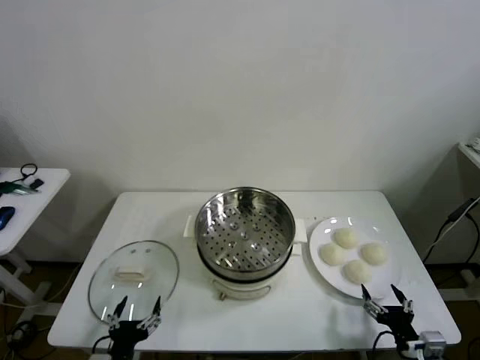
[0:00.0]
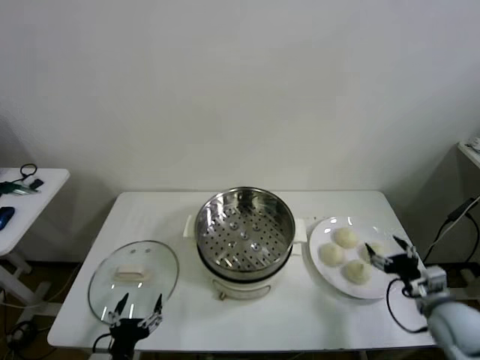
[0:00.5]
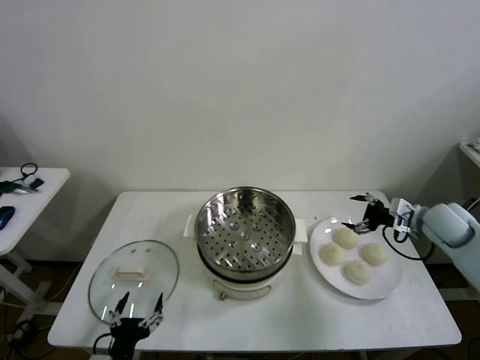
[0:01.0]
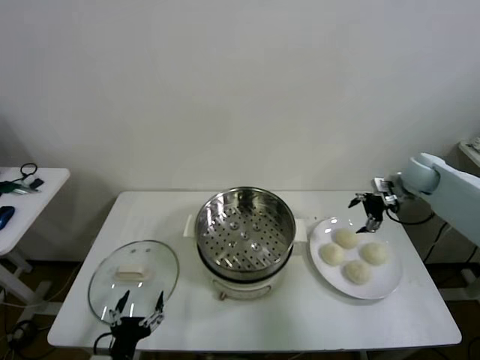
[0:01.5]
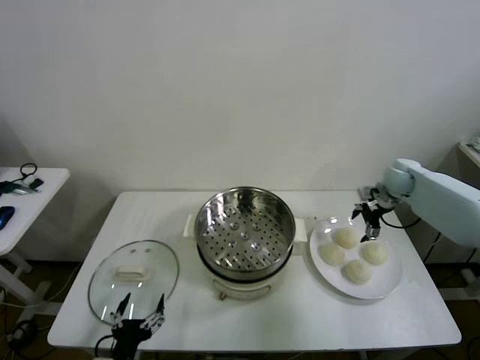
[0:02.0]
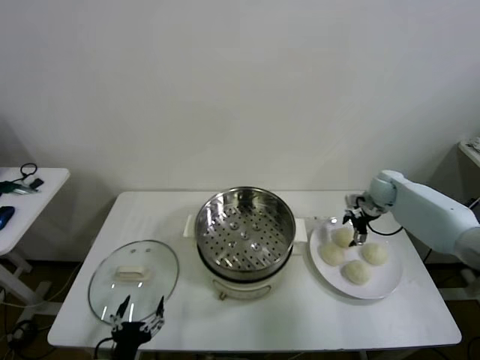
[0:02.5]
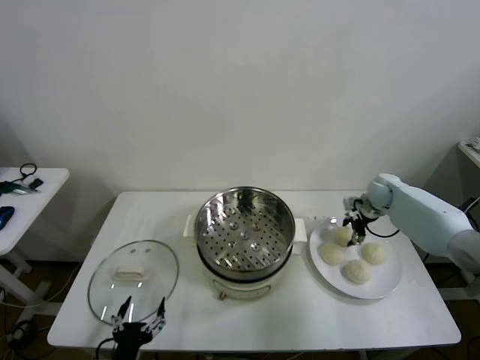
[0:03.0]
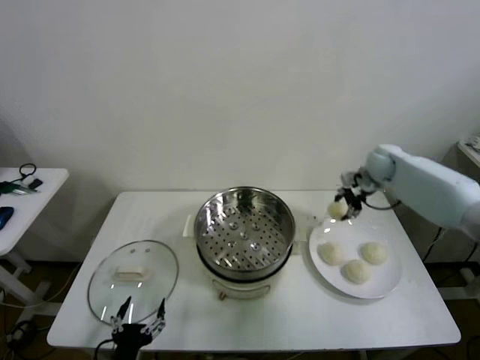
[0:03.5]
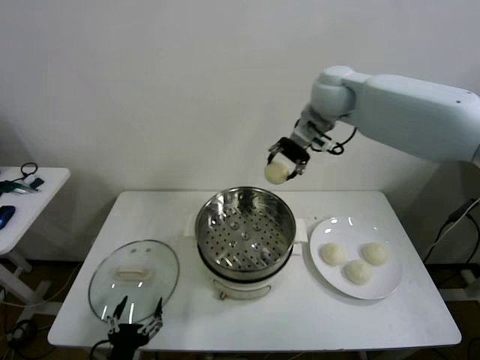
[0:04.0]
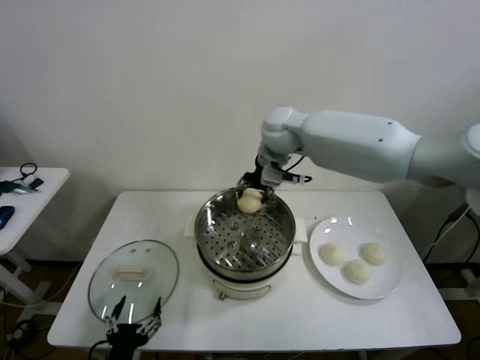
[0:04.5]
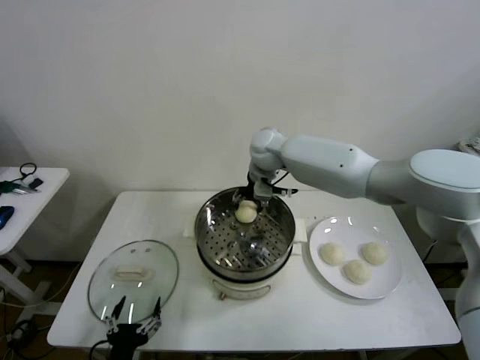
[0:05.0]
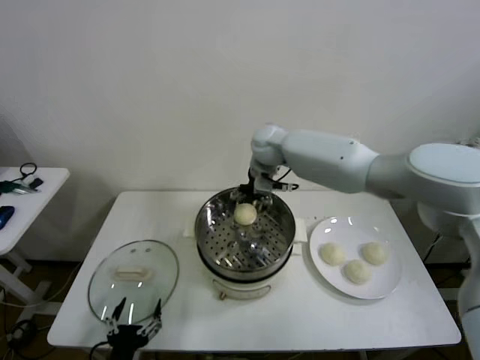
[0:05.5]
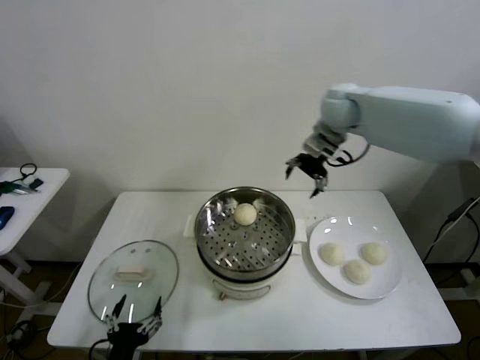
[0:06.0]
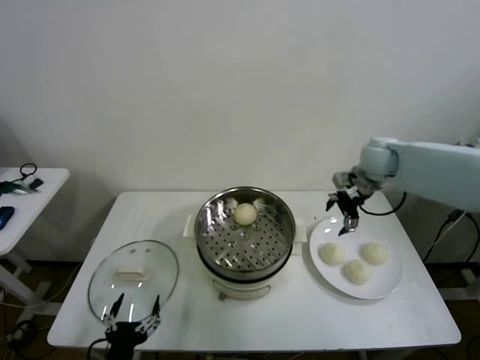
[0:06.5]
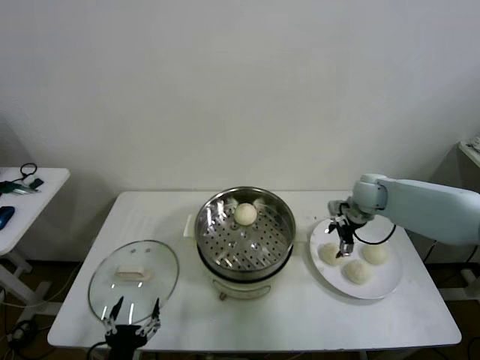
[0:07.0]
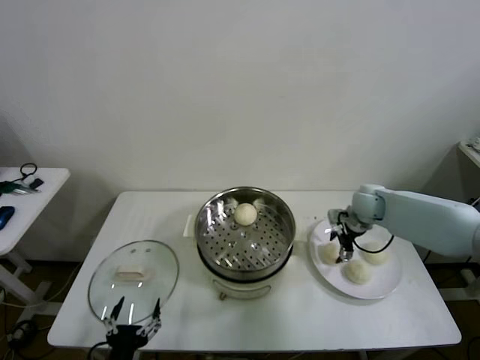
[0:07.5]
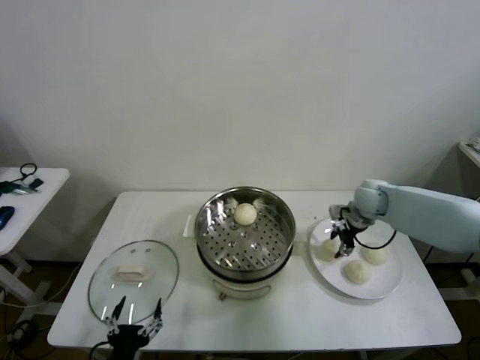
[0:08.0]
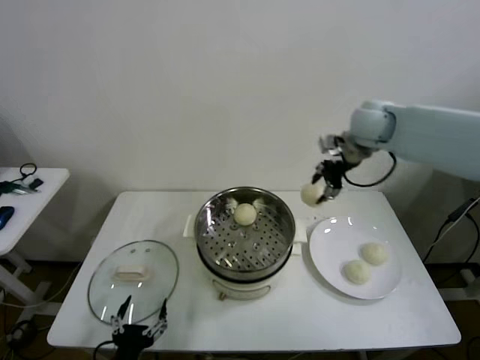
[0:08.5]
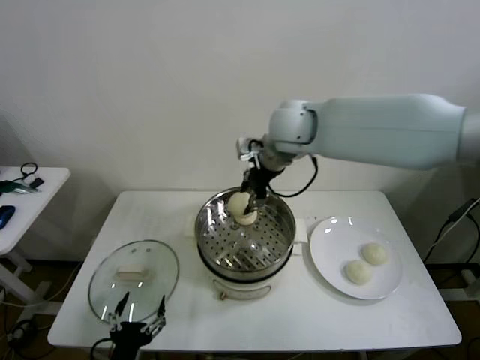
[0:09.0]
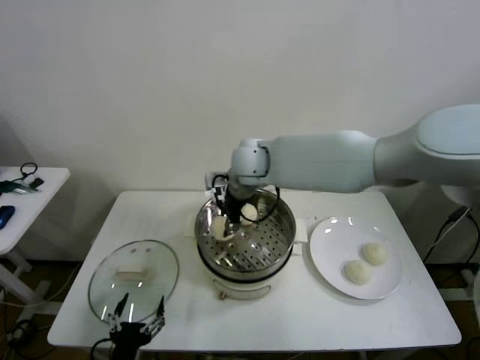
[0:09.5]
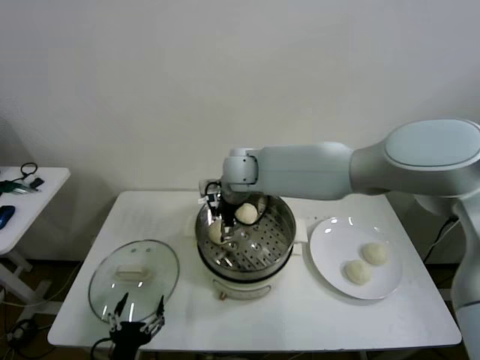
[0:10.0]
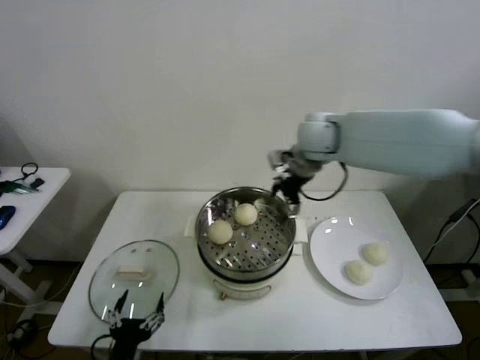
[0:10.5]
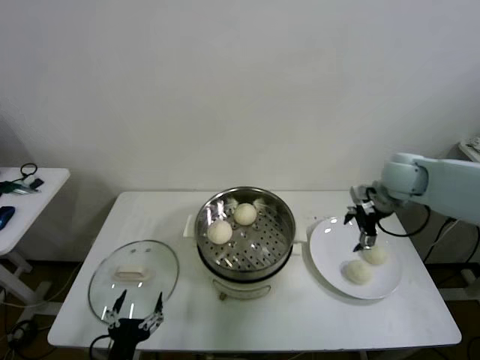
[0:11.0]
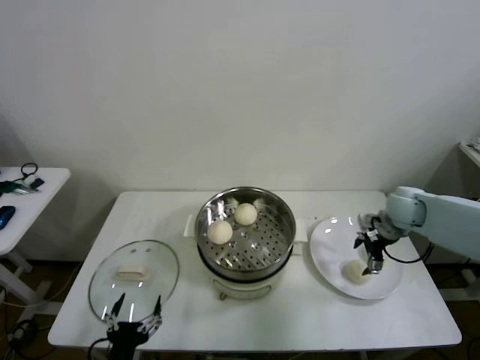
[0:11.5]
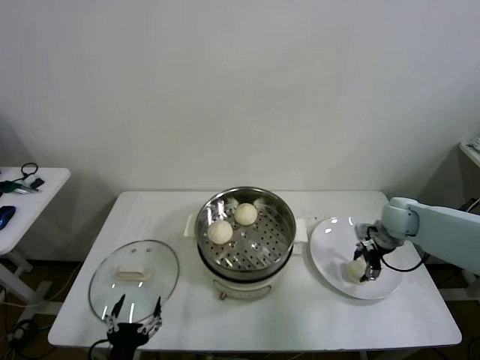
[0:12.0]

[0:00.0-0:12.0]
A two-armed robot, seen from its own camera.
Task of the whole recording: take steamed baozi put them in steamer then cover it.
Step, 0:00.0 to 0:03.0: Grasp the baozi in the plate with right gripper.
Step, 0:03.5 to 0:05.0: Place the baozi on the steamer with right gripper.
Step, 0:06.0 to 0:07.5: Grasp the baozi in the plate with right gripper.
Step, 0:08.5 to 0:10.0: Place the baozi on the steamer with right gripper.
0:02.0 to 0:04.0: The right gripper is displaced to the left and upward by roughly 35 cm, and closes its fingers.
0:04.0 to 0:06.0: The right gripper goes about 10 cm to the right, and opens up.
0:06.0 to 0:08.0: The right gripper is displaced downward by some 20 cm, and closes.
0:08.0 to 0:10.0: The right gripper heads to the left, covering approximately 35 cm, and opens.
0:10.0 to 0:12.0: The right gripper heads to the right, covering about 40 cm, and closes up.

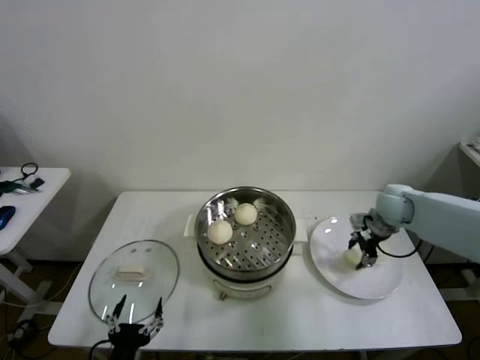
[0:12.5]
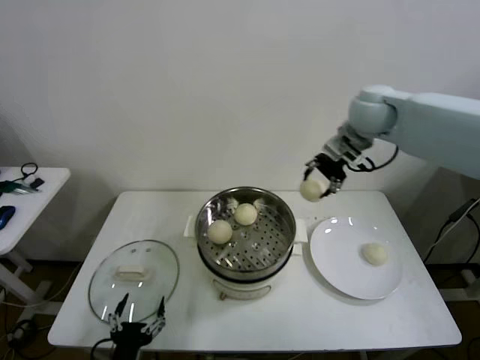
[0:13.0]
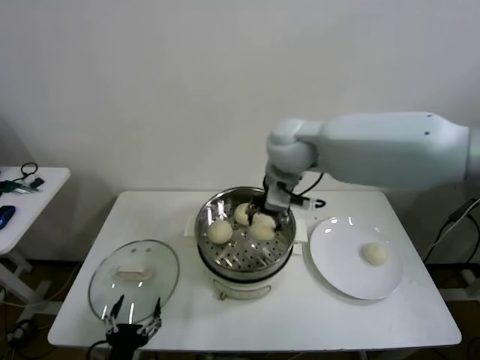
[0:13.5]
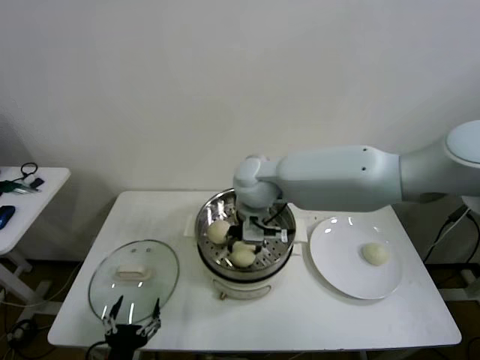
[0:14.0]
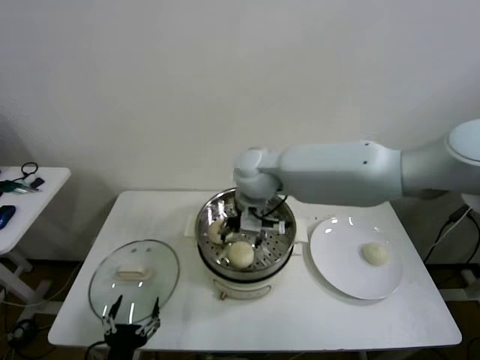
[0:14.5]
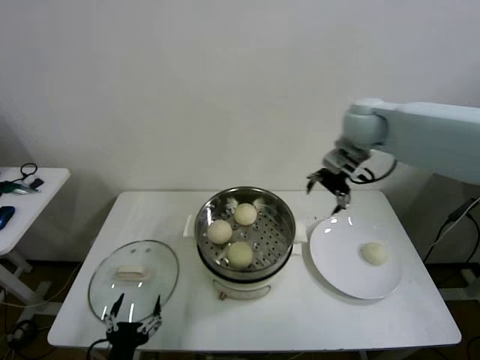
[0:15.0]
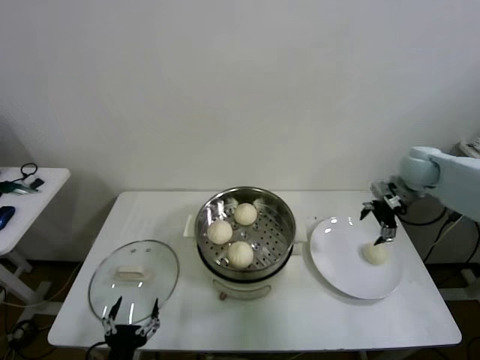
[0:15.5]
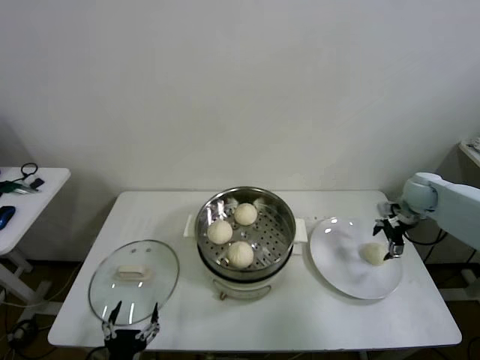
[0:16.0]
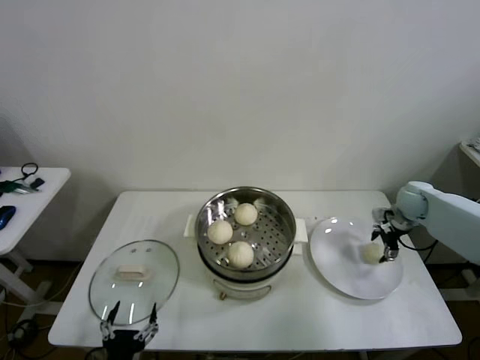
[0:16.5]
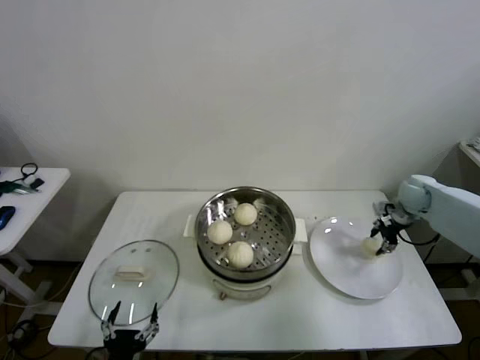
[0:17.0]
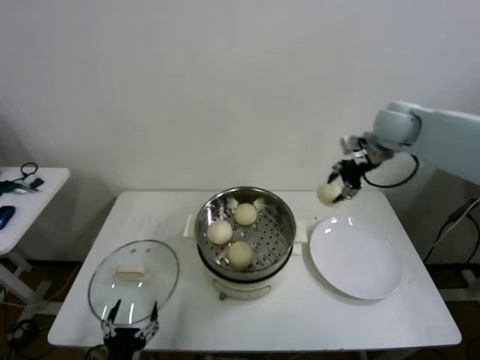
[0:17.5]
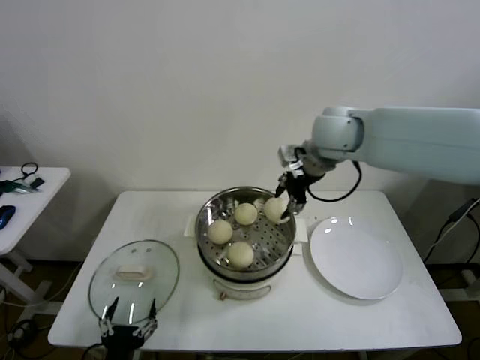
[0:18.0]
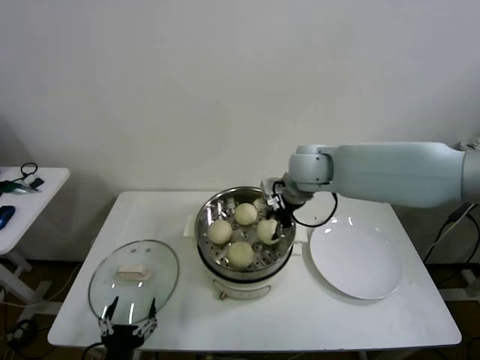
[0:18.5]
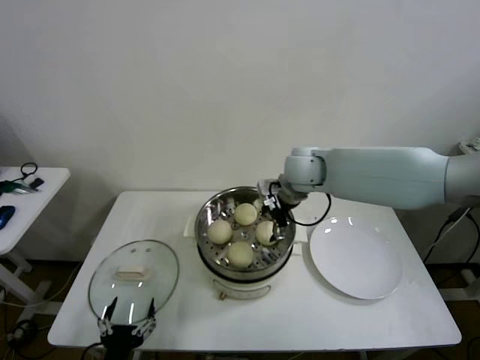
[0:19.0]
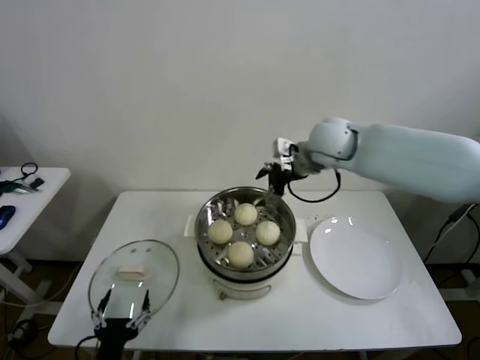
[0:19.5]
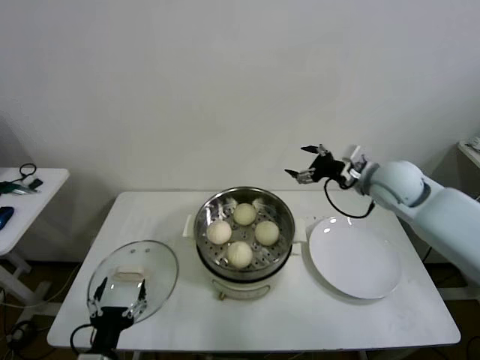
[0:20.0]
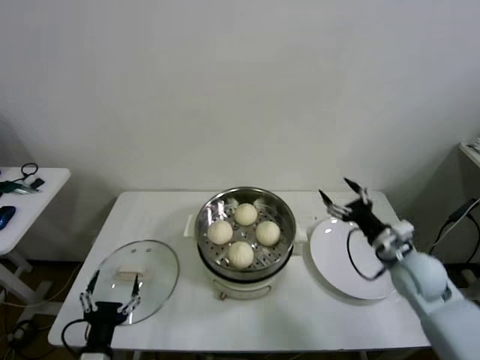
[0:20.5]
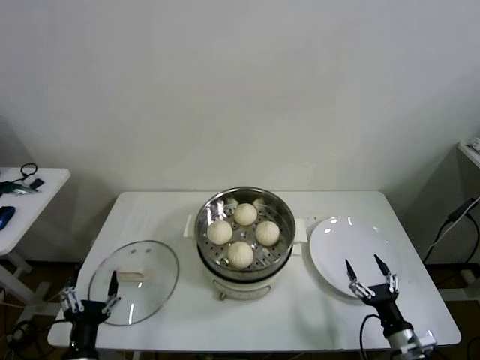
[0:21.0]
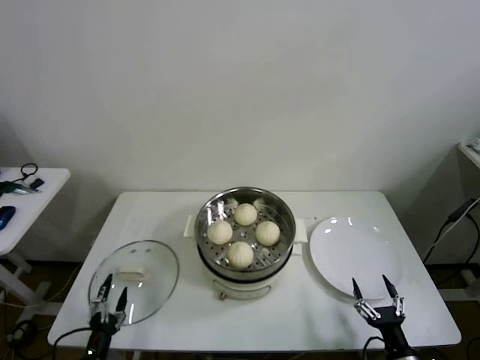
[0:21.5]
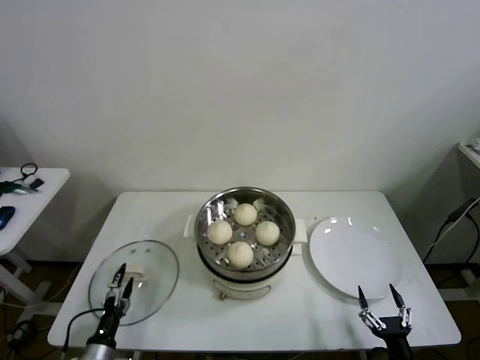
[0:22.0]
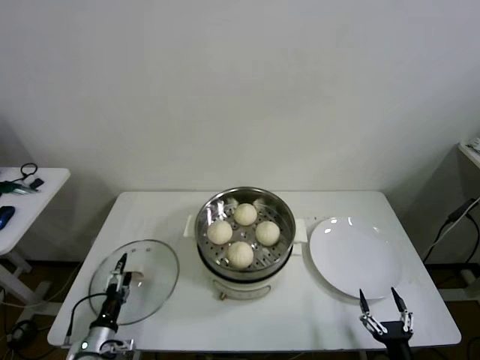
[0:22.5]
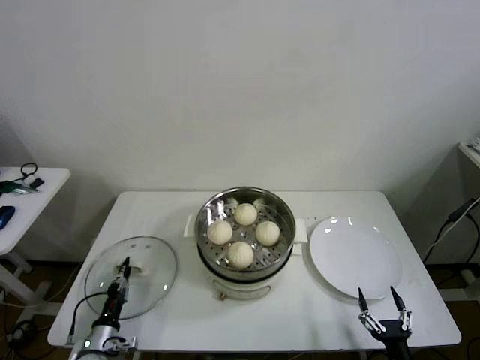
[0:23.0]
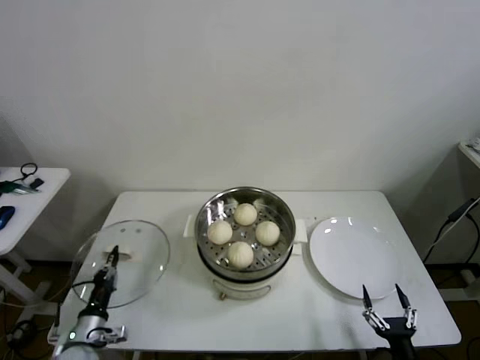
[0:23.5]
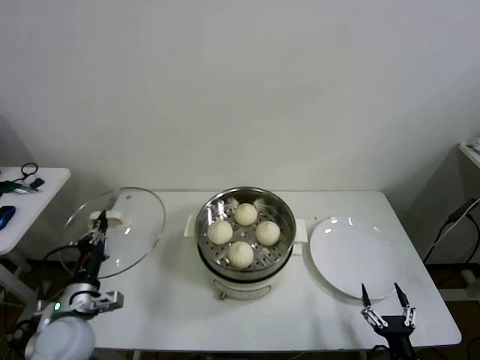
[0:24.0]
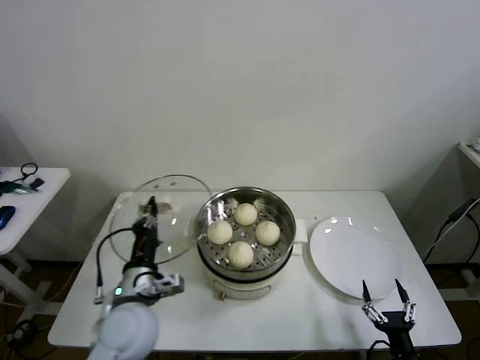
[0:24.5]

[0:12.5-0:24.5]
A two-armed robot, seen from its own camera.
Task of the whole recording: take steamed baozi put them in steamer then cover it.
Step, 0:12.5 to 0:14.0: Place the baozi on the steamer with right gripper.
Step, 0:14.5 to 0:16.5: Grasp the baozi in the plate with right gripper.
Step, 0:17.0 to 0:19.0: Place the baozi on the steamer with right gripper.
Step, 0:19.5 to 0:23.0: Grasp the pot lid with left gripper.
0:12.5 to 0:14.5: The right gripper is displaced to the left by some 35 cm, and opens up.
0:14.5 to 0:16.5: The right gripper heads to the right, covering some 40 cm.
0:16.5 to 0:18.5: The right gripper travels to the left and upward by approximately 35 cm, and closes.
0:18.5 to 0:20.5: The right gripper shifts approximately 30 cm to the right, downward and backward, and opens up.
0:20.5 to 0:22.5: The right gripper moves backward and downward, about 30 cm, while the left gripper shifts about 15 cm downward, to the left and forward.
0:22.5 to 0:24.5: The left gripper goes some 25 cm upward and to the right, and closes up.

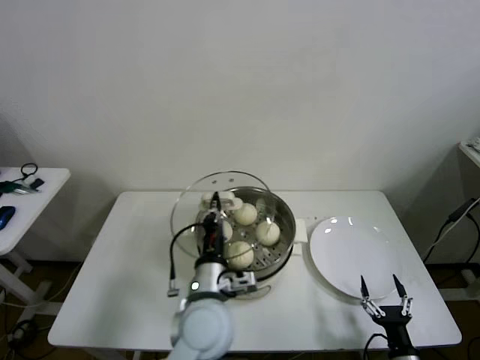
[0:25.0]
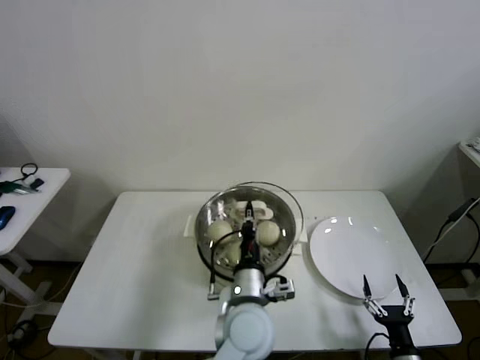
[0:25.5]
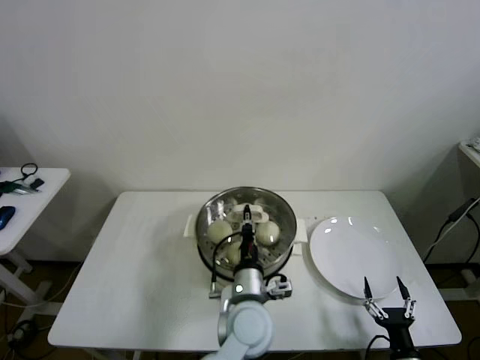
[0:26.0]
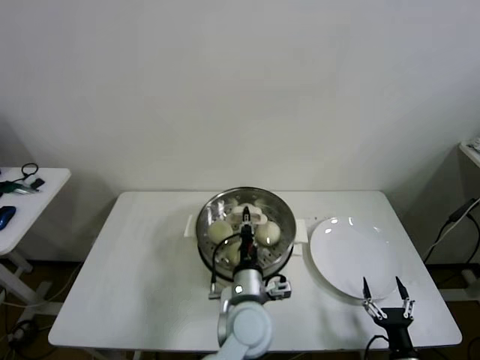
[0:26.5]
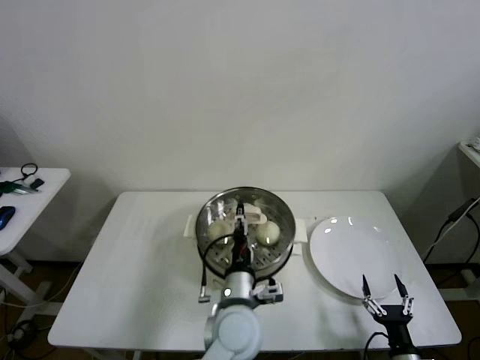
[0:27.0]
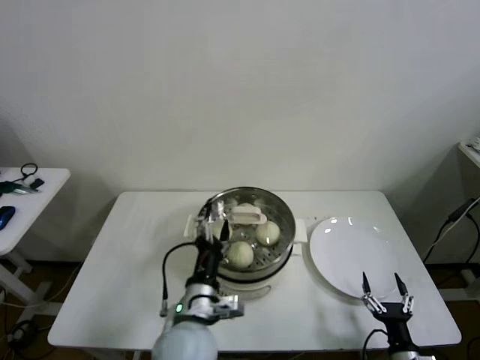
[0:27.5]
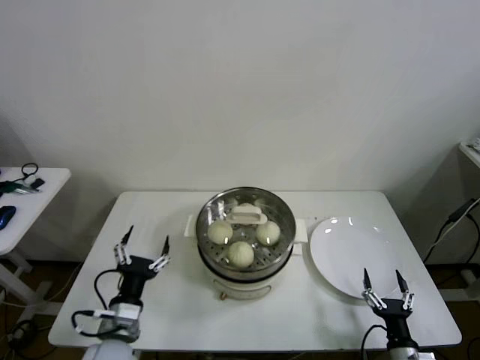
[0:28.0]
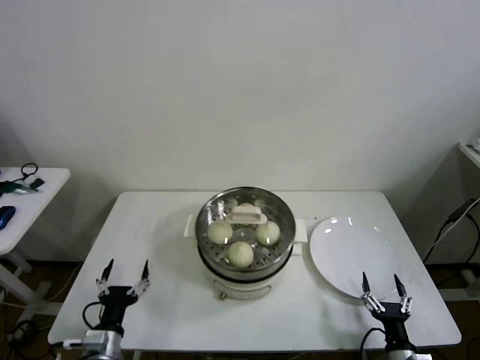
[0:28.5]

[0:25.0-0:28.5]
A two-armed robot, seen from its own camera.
Task of the whole recording: take steamed baozi put them in steamer then cover it.
Step, 0:25.0 to 0:27.0: Place the pot lid on the steamer with left gripper.
0:25.0 to 0:27.0: The left gripper goes some 5 cm to the right, and opens.
0:27.0 to 0:28.5: The left gripper is displaced to the left by roughly 30 cm, and opens its fingers.
